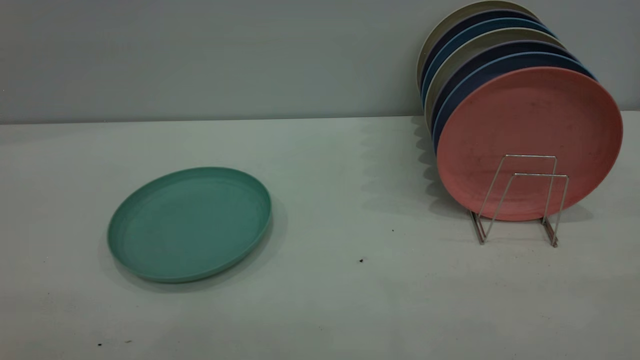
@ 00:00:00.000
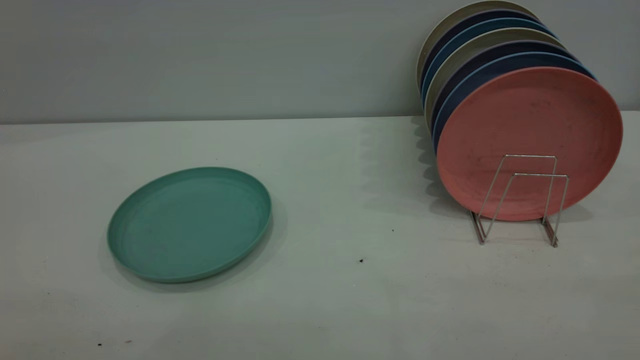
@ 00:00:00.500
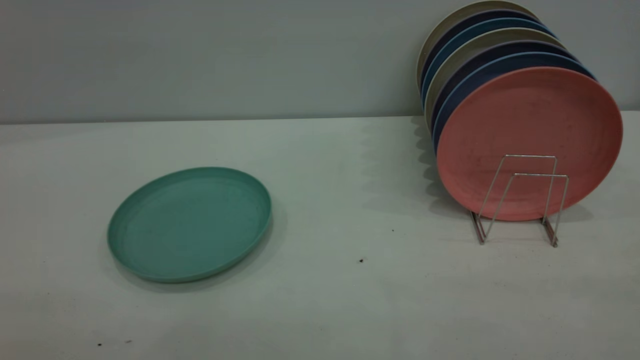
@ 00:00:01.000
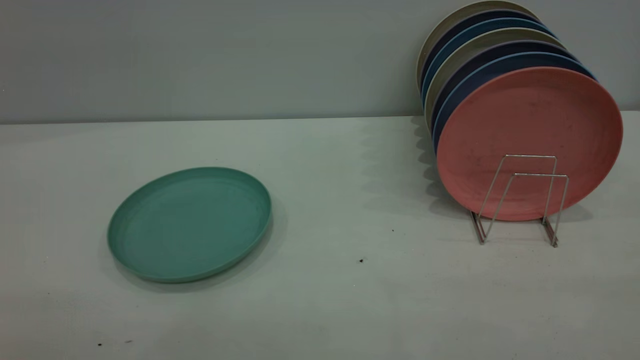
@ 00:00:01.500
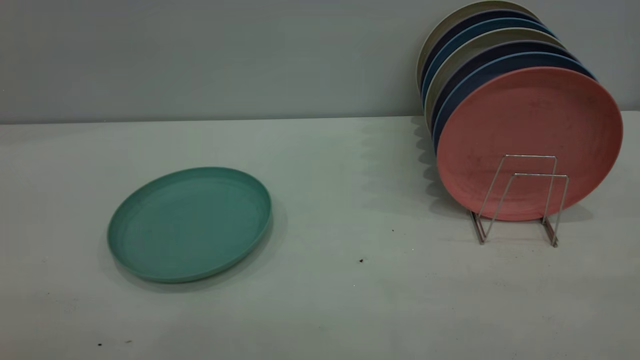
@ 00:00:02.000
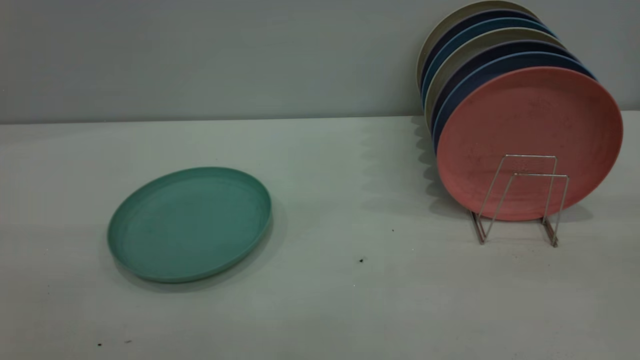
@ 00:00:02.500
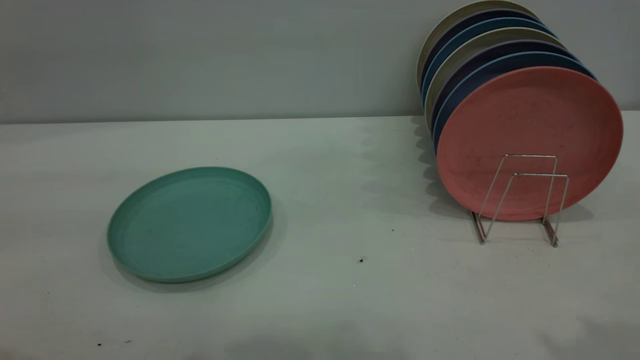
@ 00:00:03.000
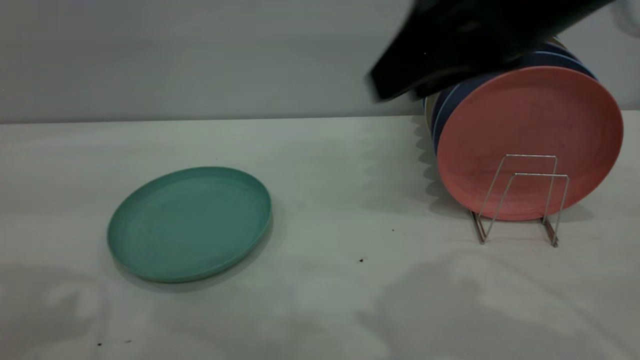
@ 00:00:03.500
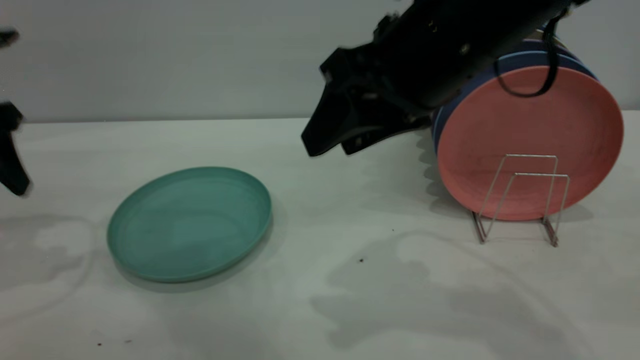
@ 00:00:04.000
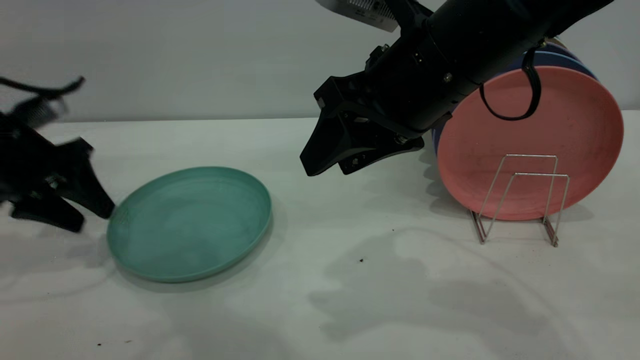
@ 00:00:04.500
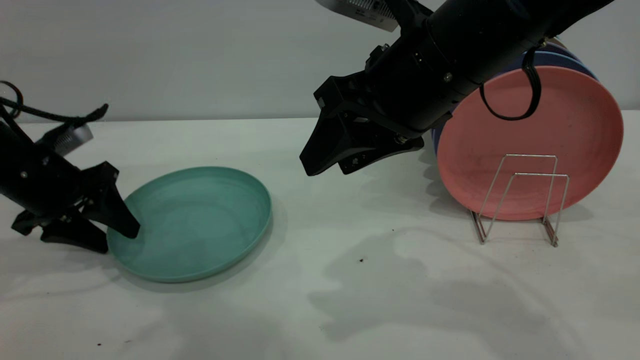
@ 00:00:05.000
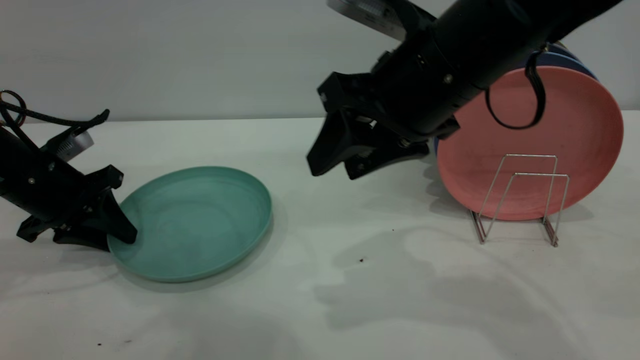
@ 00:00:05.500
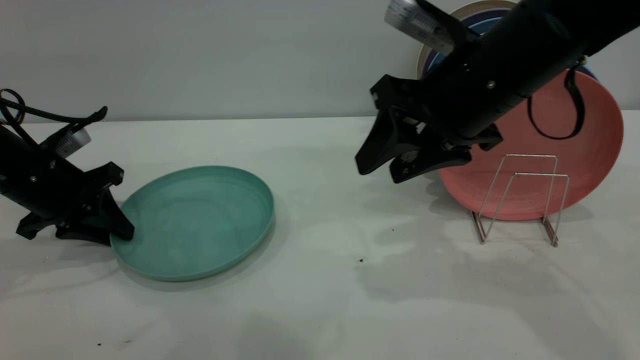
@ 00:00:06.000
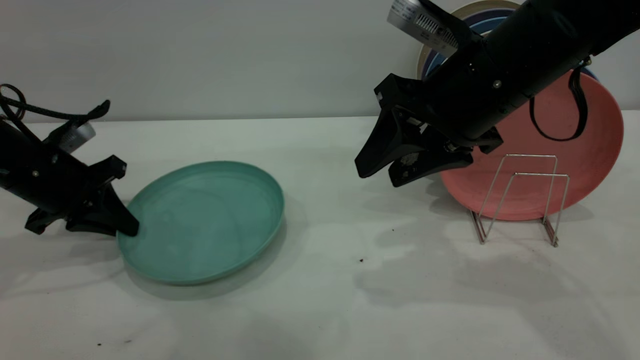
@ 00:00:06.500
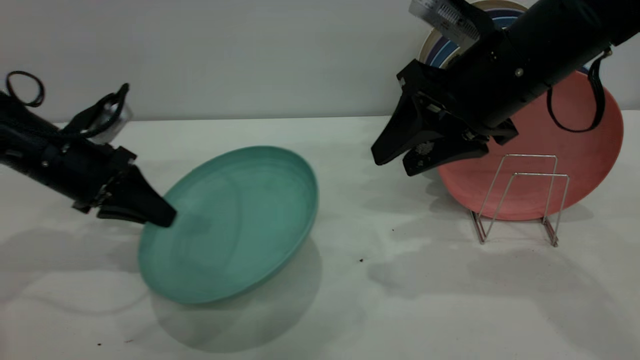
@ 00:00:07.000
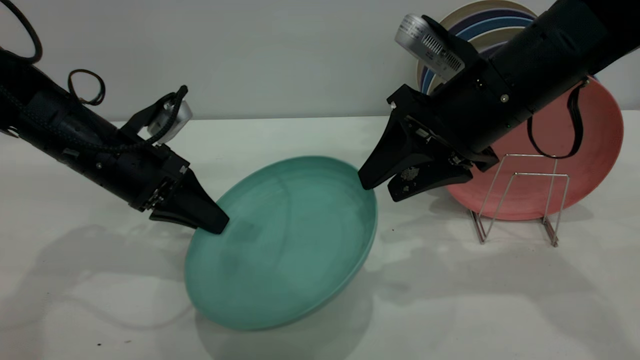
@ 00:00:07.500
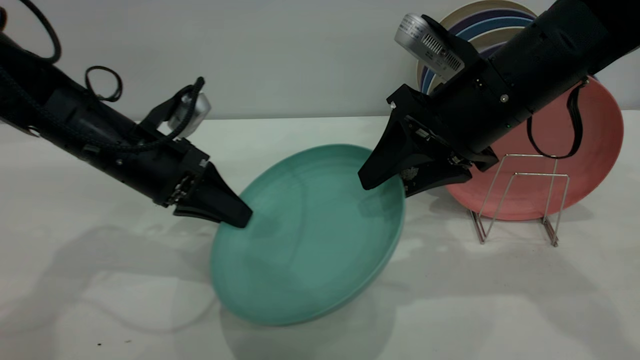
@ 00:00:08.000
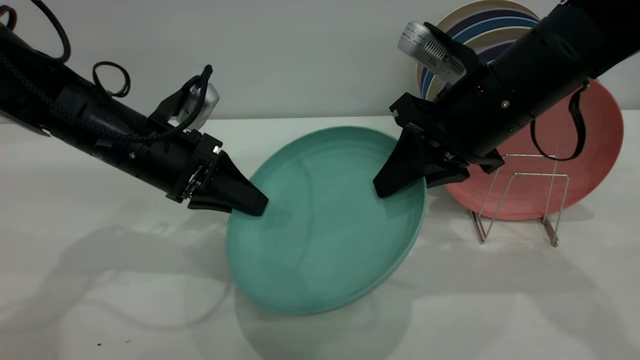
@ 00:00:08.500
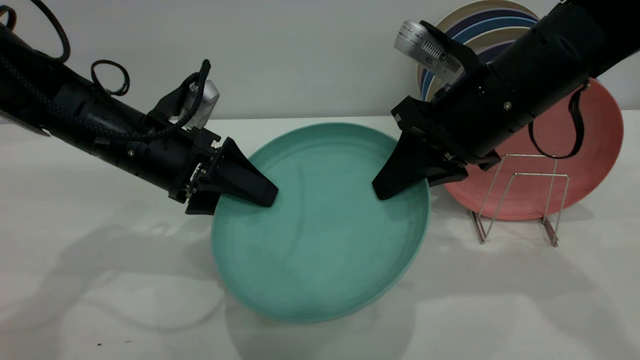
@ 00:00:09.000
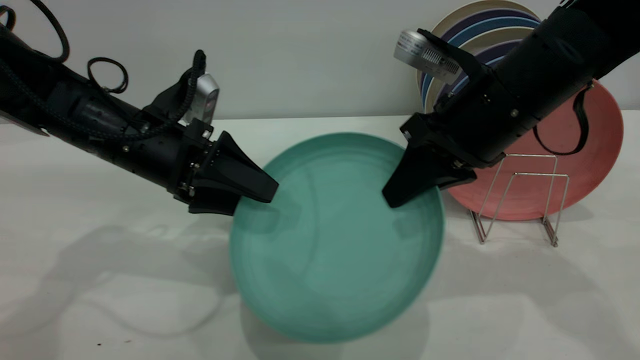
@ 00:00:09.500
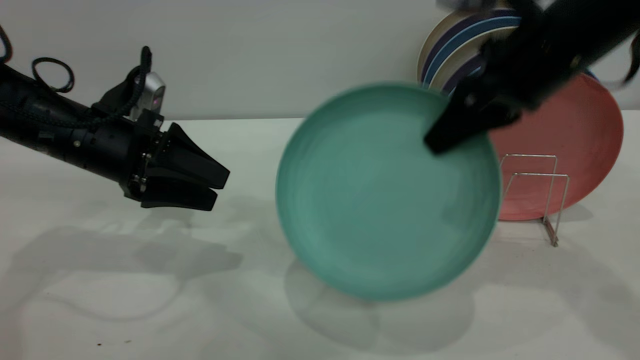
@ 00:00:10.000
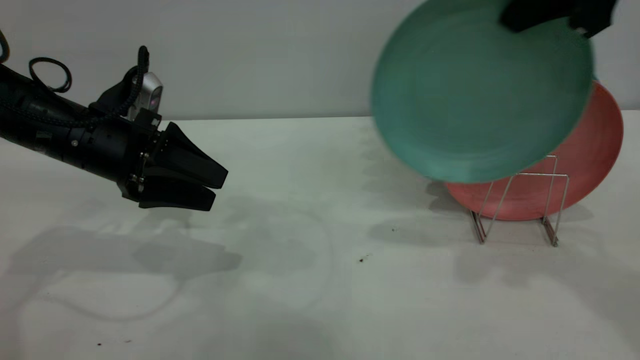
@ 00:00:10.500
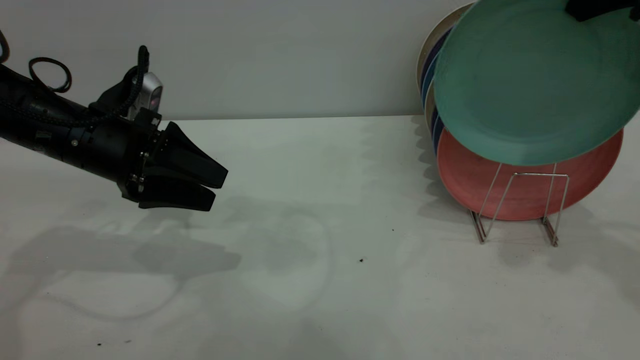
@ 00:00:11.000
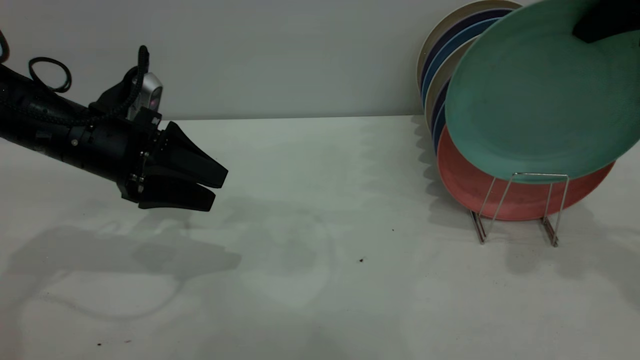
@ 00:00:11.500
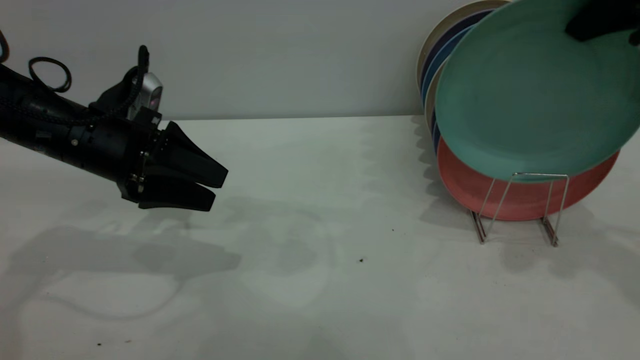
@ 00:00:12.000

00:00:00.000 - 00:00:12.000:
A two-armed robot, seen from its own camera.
Task of the whole recording: the left gripper grasp the green plate, the left gripper pass the green plate to the right gripper, and the right gripper place the green plate on the plate rack.
Step, 00:00:00.000 - 00:00:06.500: Pick up the plate with the left gripper.
Step, 00:00:07.000 - 00:00:09.500: Pass the plate from the left gripper to the right gripper.
00:00:00.000 - 00:00:02.000: Both grippers stay about where they are.
00:00:02.000 - 00:00:04.000: The left gripper moves forward, roughly 40 cm; the right gripper shifts approximately 40 cm forward and to the left, and opens its fingers.
00:00:04.000 - 00:00:06.000: The left gripper travels downward by approximately 10 cm, and closes up, while the right gripper ends up approximately 5 cm from where it was.
00:00:06.000 - 00:00:08.000: The left gripper is displaced to the right by approximately 15 cm.
00:00:08.000 - 00:00:10.000: The left gripper opens up. The right gripper travels upward by roughly 5 cm, and closes its fingers.
00:00:10.000 - 00:00:12.000: The right gripper shifts about 10 cm to the right and upward.

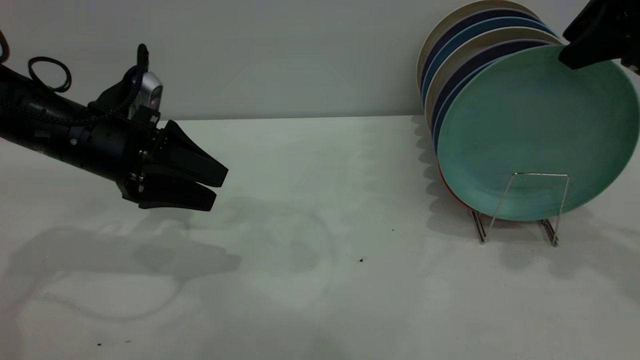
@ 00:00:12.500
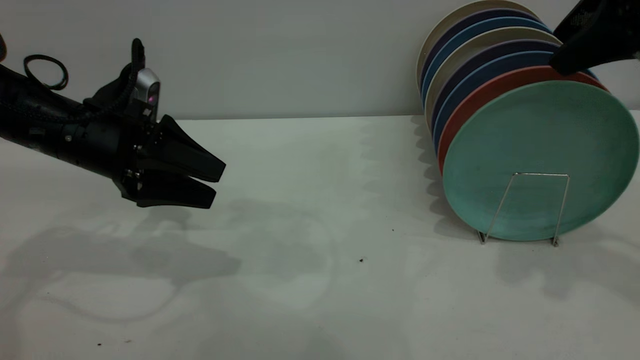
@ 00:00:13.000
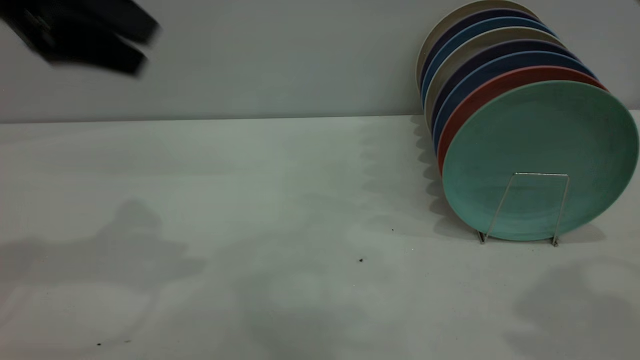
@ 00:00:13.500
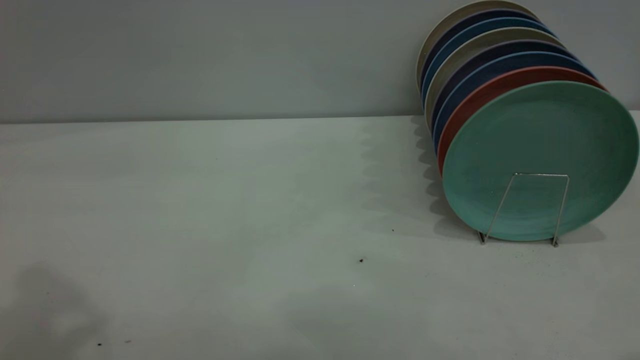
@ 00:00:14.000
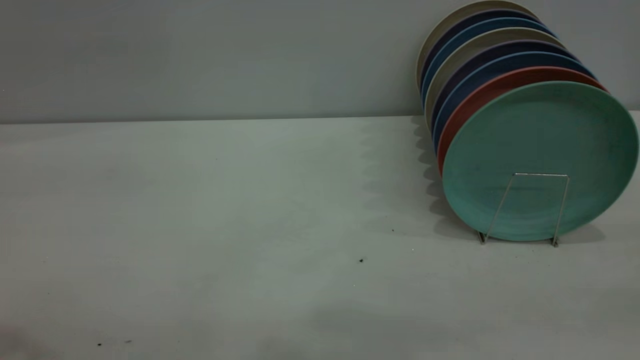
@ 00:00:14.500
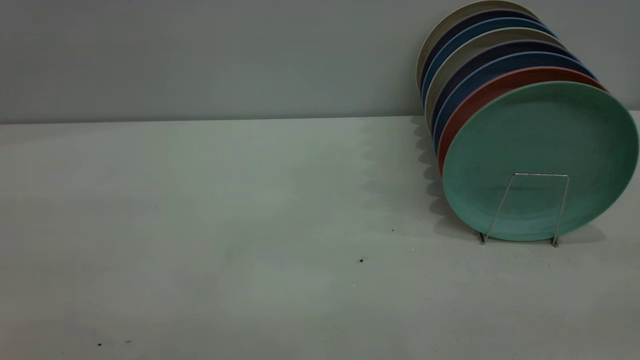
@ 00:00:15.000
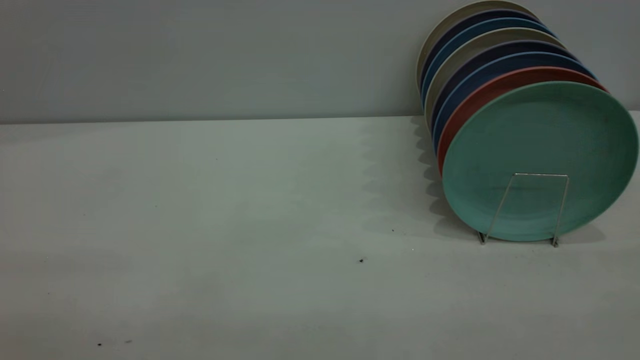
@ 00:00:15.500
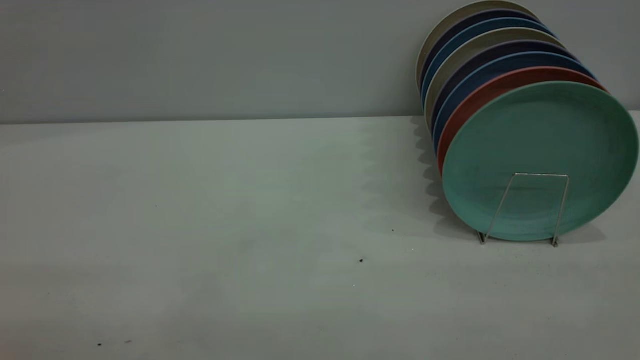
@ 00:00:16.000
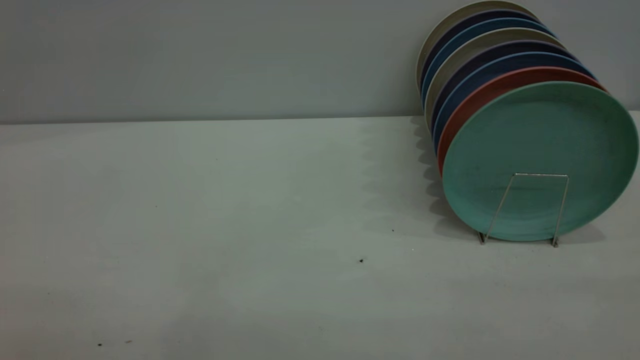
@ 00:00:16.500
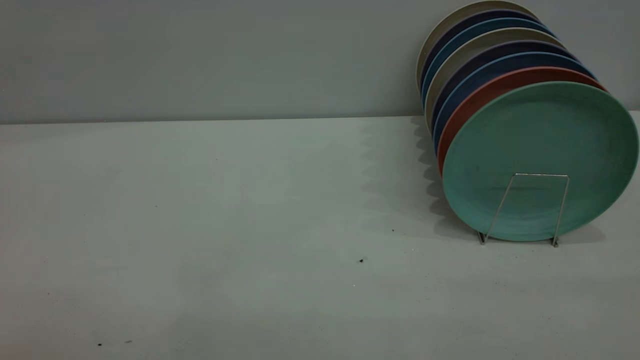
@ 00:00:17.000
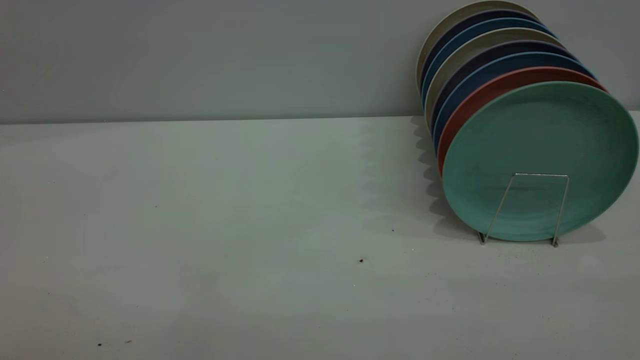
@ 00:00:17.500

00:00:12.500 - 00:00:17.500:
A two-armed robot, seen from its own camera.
Task of the whole recording: the left gripper grasp the green plate, the left gripper pass the green plate to the right gripper, and the right gripper place the green plate on the plate rack.
00:00:12.500 - 00:00:15.000: The left gripper goes about 35 cm backward and upward. Meanwhile the right gripper shifts some 30 cm backward.
